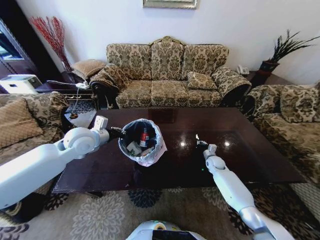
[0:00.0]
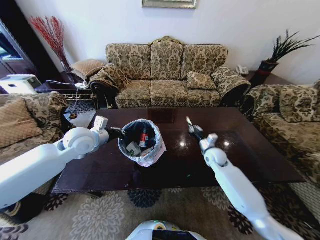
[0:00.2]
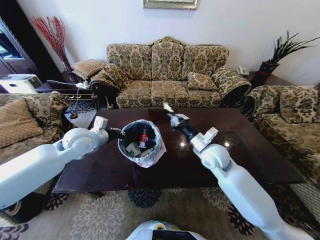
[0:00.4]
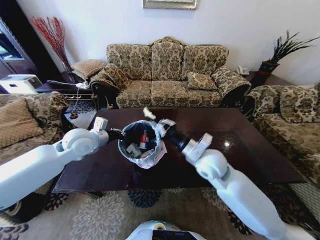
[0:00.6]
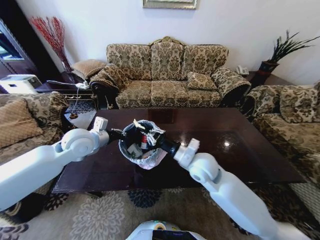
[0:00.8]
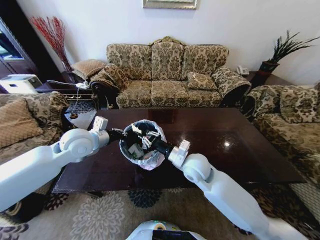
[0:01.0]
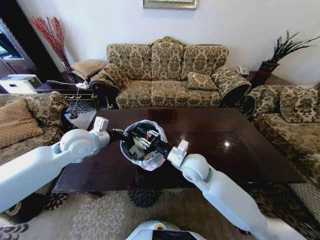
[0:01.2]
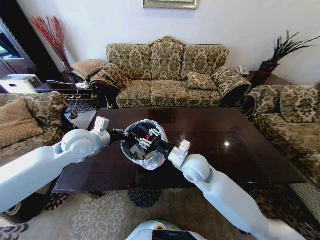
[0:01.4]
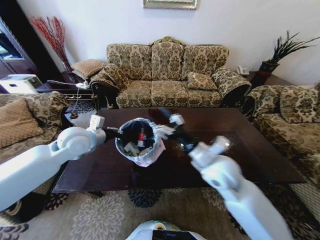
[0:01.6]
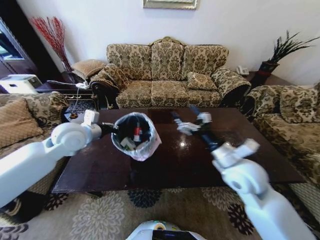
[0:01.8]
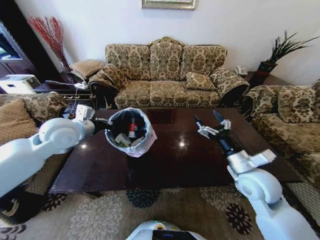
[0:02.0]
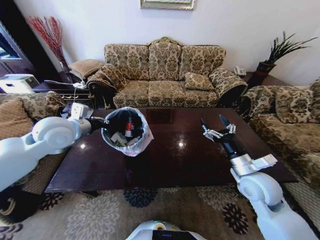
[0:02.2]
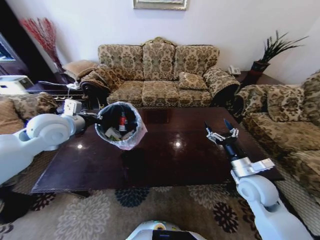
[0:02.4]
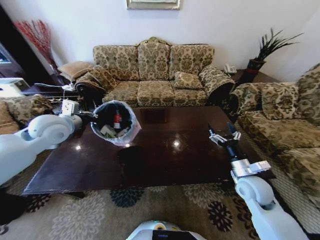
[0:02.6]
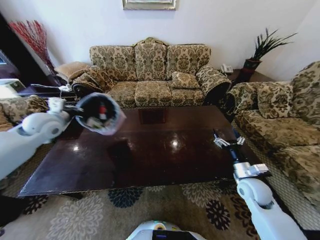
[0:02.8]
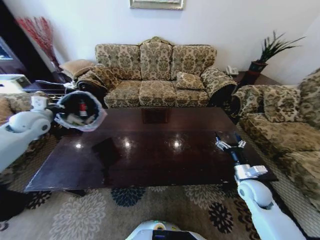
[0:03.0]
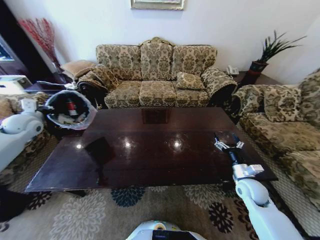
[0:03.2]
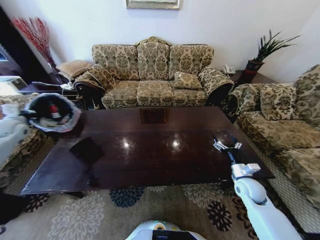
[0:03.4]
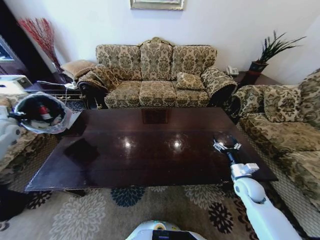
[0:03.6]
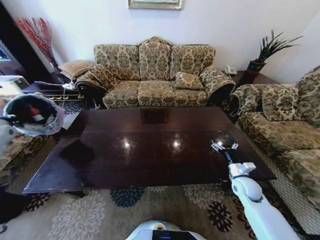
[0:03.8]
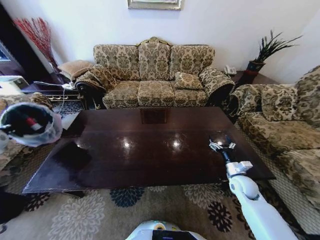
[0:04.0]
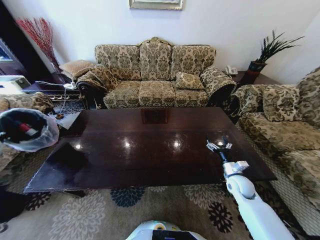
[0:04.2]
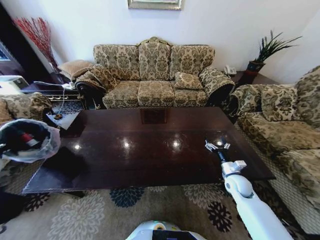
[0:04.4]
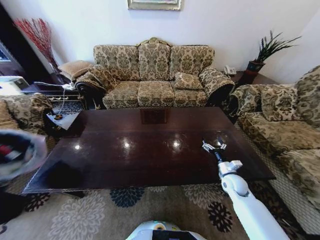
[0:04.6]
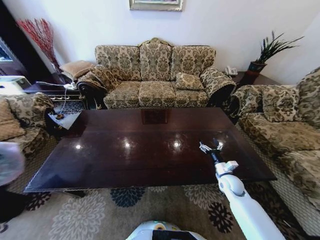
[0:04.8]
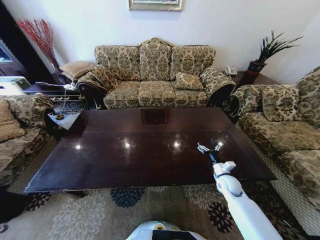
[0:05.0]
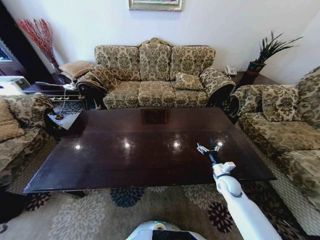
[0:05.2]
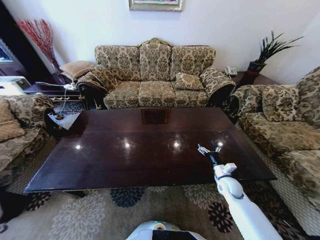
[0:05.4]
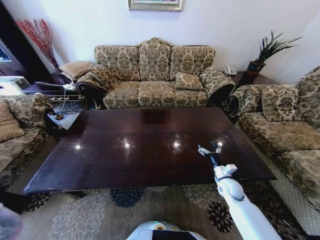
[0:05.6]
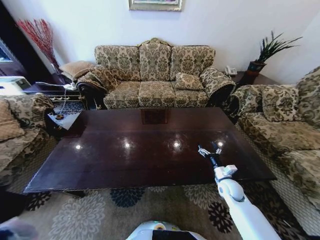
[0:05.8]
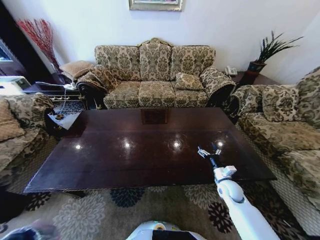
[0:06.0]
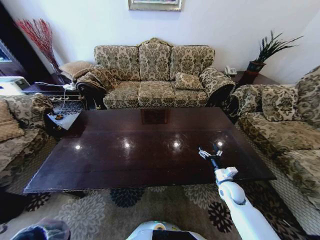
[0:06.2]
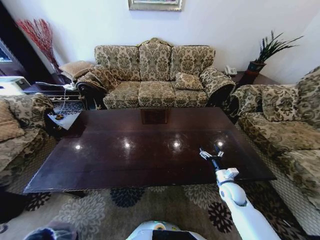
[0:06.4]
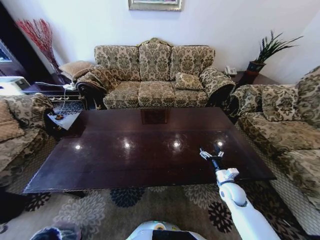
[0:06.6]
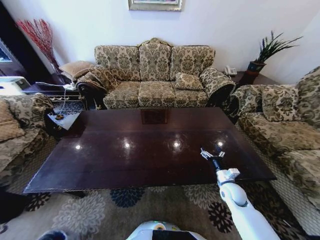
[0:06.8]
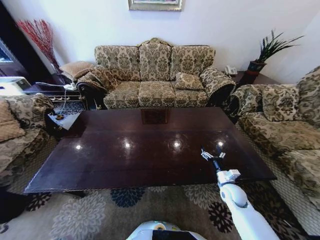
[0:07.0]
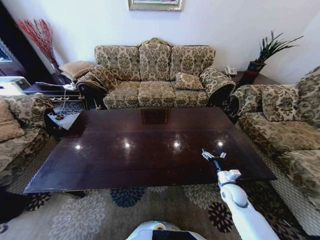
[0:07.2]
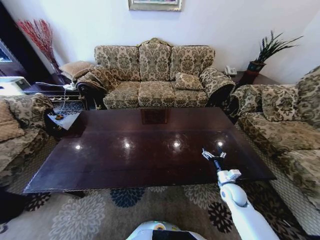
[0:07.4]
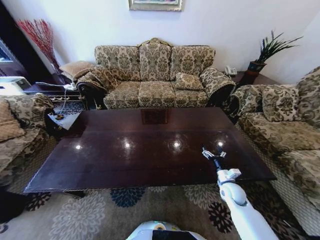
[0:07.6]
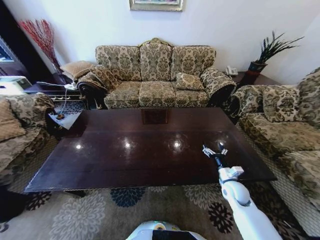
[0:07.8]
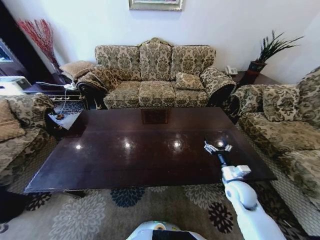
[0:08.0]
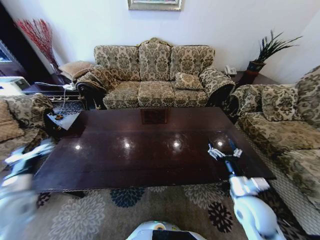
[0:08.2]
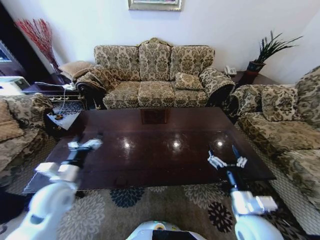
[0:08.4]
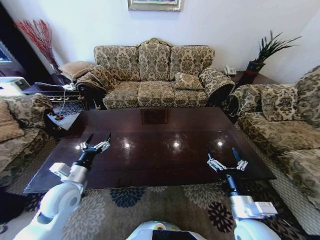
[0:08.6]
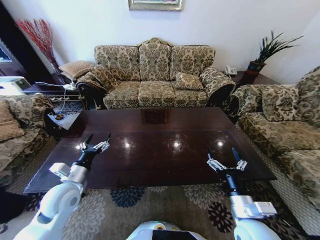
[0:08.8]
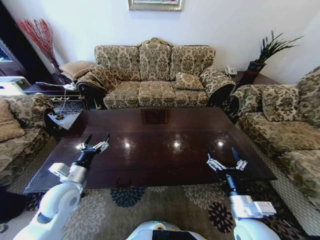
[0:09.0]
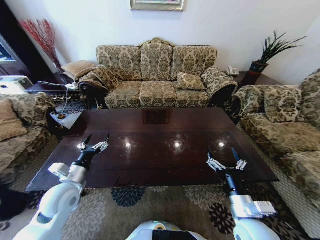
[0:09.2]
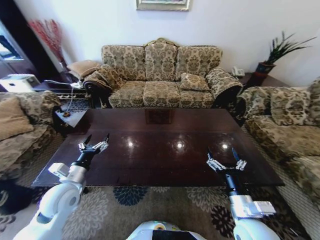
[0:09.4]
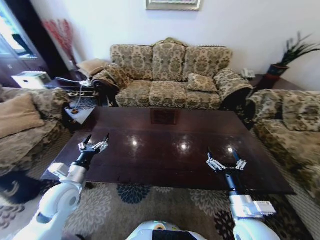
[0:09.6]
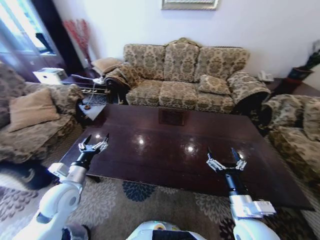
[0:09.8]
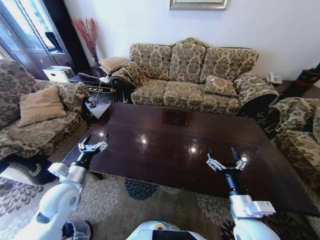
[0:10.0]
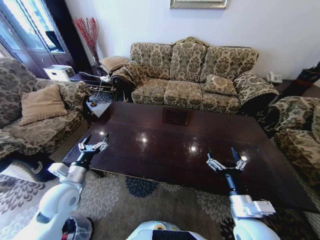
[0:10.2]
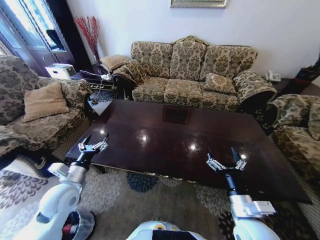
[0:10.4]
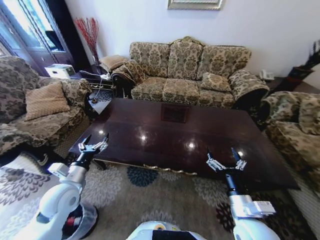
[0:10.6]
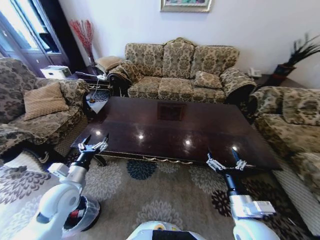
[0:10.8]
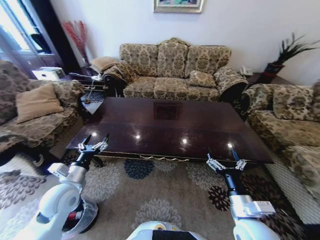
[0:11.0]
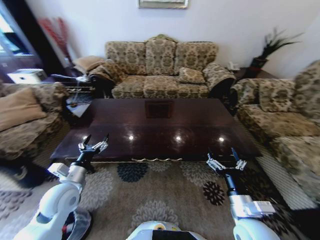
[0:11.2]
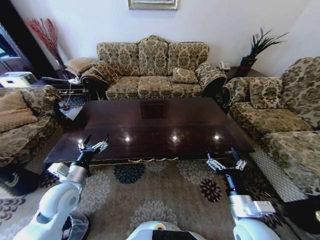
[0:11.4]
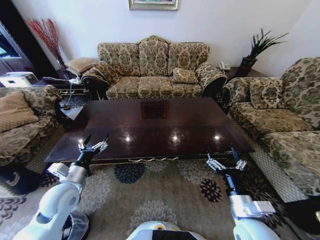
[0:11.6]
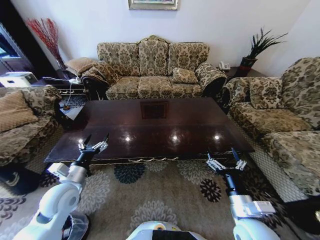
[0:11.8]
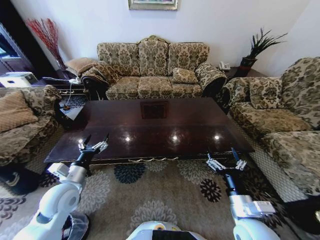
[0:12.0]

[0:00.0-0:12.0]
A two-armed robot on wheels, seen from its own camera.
Task of the whole recording: Move to the front of the table and place the trash on the table into the trash bin.
0:00.0 to 0:01.6: The right gripper heads upward, backward and to the left, covering some 35 cm, and opens its fingers.
0:01.6 to 0:03.0: The left gripper moves to the left, roughly 20 cm; the right gripper travels to the right and downward by some 25 cm.
0:03.0 to 0:04.4: The right gripper shifts roughly 5 cm downward, while the left gripper shifts approximately 25 cm to the left, backward and downward.
0:04.4 to 0:06.0: The left gripper shifts approximately 50 cm backward and downward.
0:06.0 to 0:07.6: The left gripper heads backward and downward, covering about 10 cm, and opens up.
0:07.6 to 0:09.0: The right gripper moves backward, upward and to the left, some 25 cm, while the left gripper goes roughly 50 cm forward, upward and to the right.

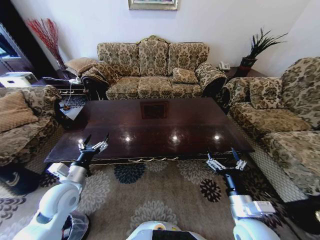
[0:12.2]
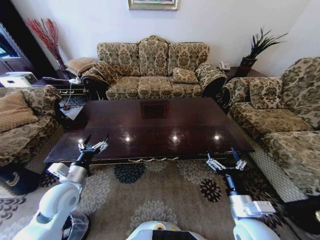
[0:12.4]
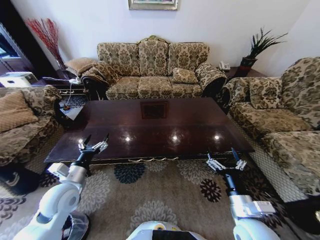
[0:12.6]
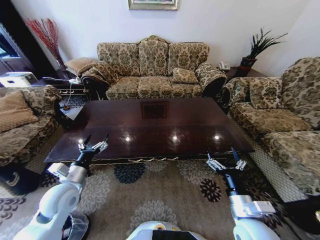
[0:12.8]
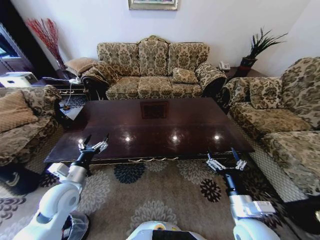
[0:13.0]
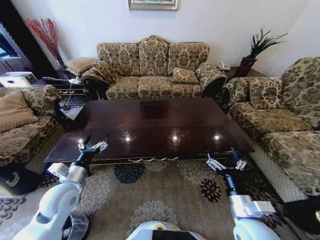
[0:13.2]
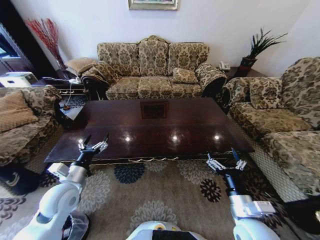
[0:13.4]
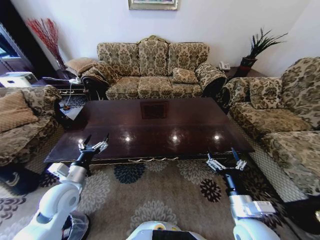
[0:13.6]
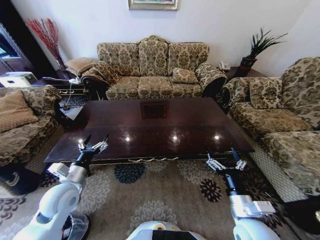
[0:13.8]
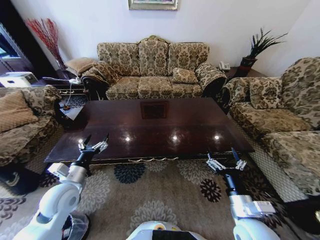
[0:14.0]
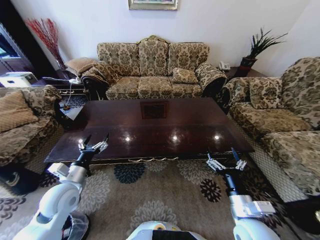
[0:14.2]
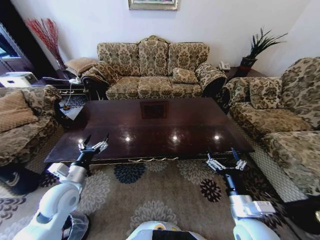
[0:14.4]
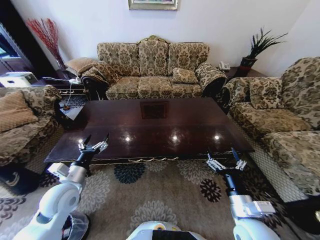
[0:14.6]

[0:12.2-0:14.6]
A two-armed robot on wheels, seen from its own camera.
Task of the whole recording: Move to the front of the table and place the trash on the table into the trash bin.
0:12.2 to 0:14.6: Neither gripper changes place.
